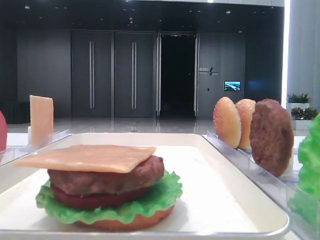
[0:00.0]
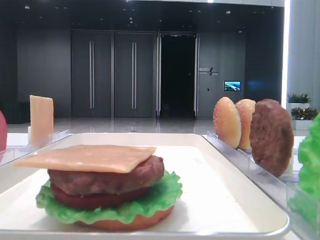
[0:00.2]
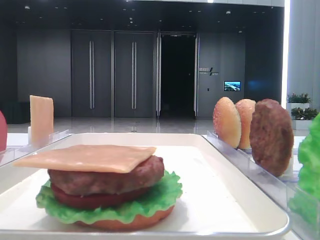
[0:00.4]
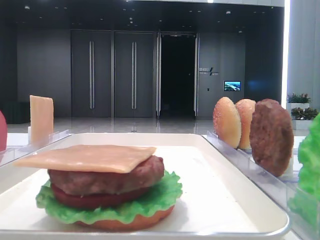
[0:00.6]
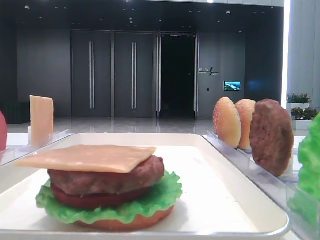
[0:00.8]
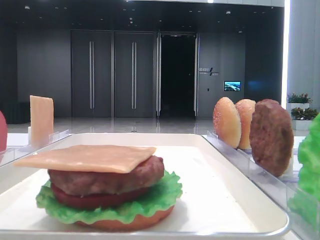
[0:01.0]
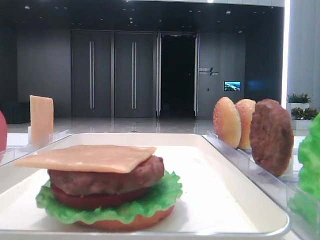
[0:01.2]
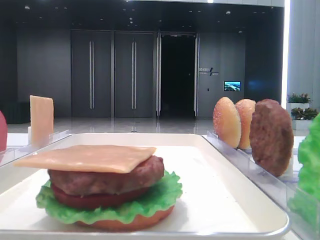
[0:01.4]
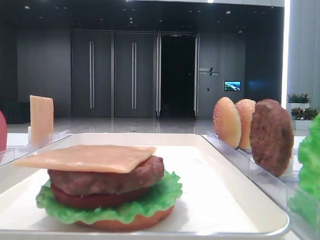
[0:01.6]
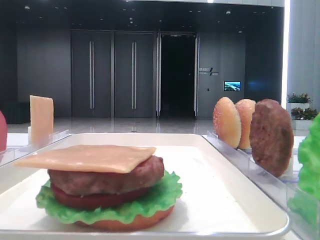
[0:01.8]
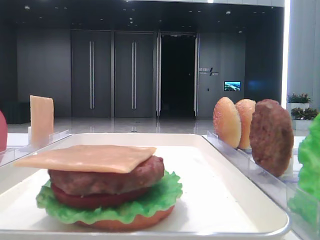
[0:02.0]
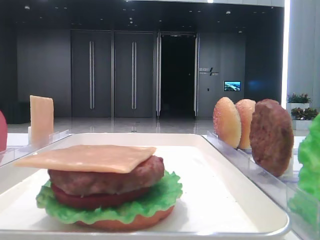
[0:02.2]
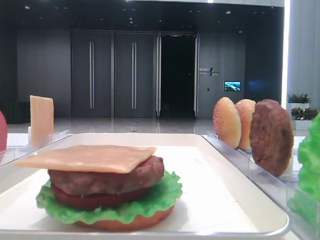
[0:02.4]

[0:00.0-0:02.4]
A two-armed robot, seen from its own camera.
0:01.2 to 0:02.4: The two grippers keep their place.
